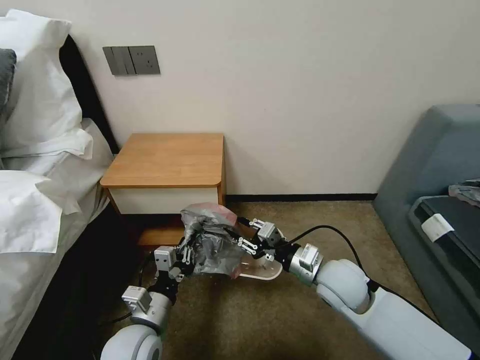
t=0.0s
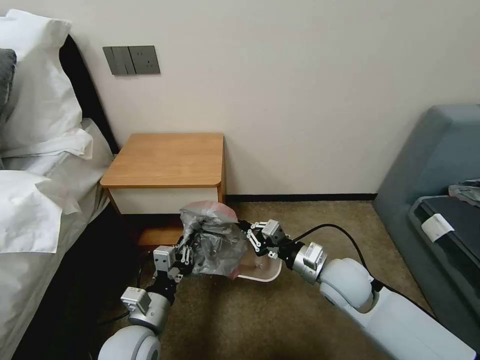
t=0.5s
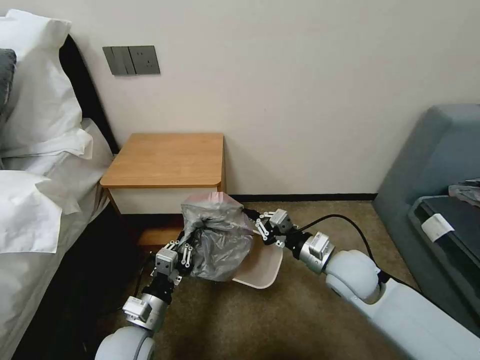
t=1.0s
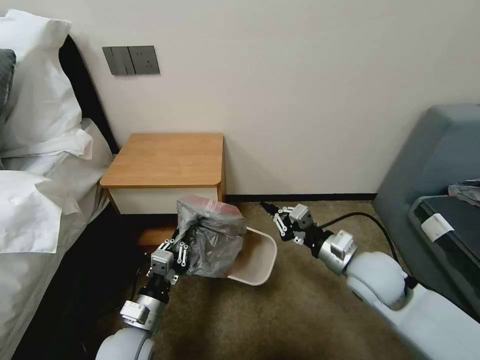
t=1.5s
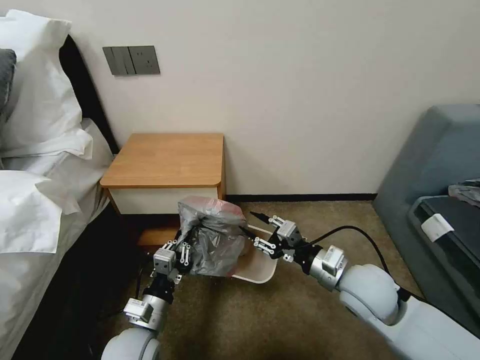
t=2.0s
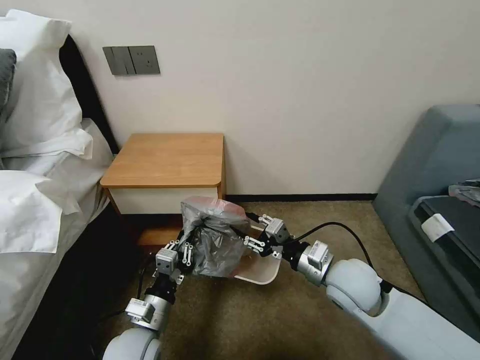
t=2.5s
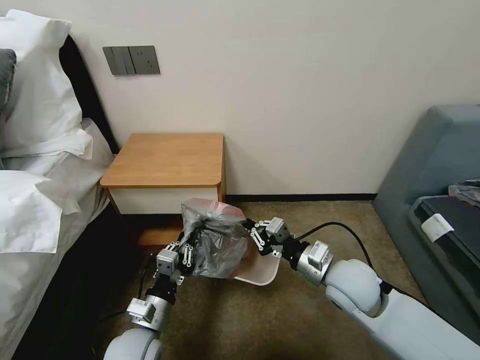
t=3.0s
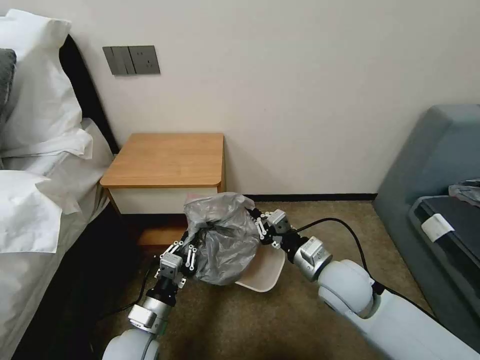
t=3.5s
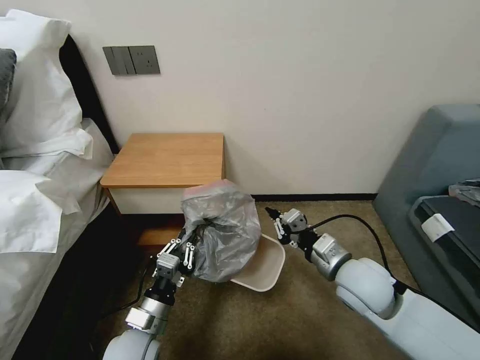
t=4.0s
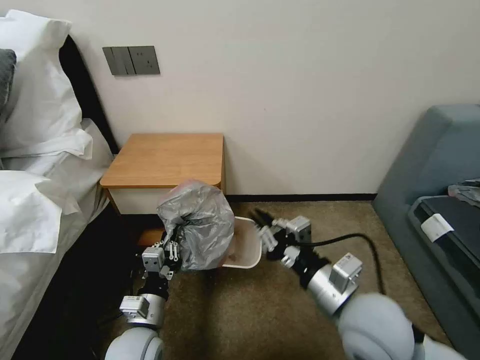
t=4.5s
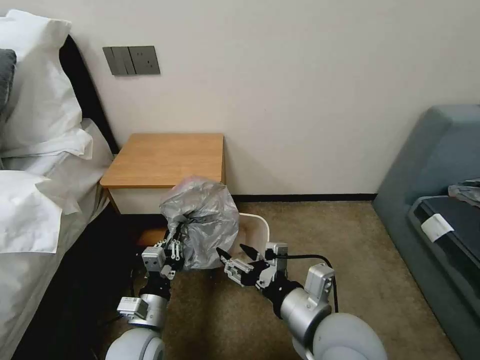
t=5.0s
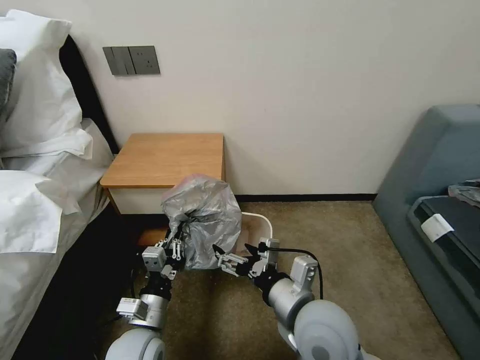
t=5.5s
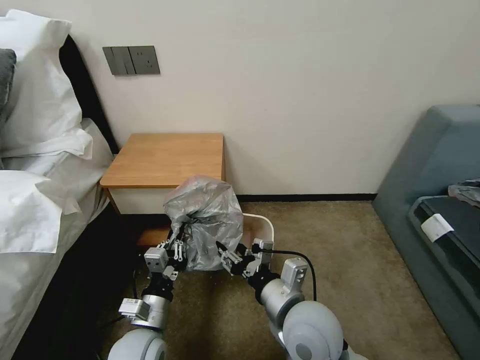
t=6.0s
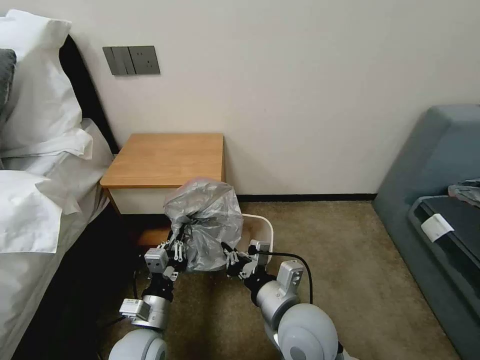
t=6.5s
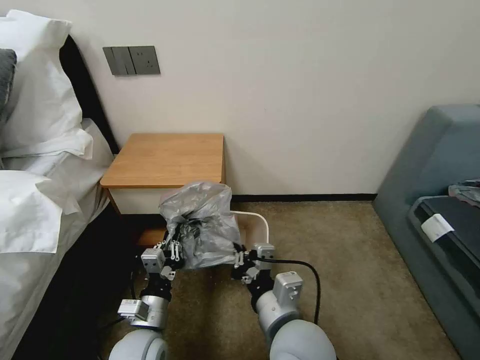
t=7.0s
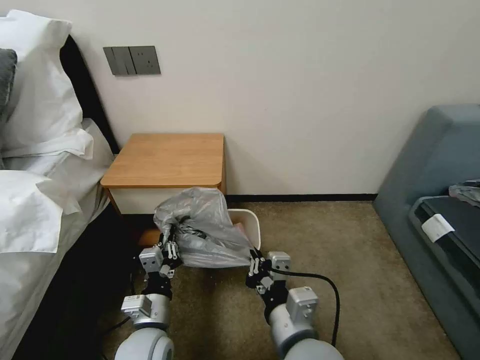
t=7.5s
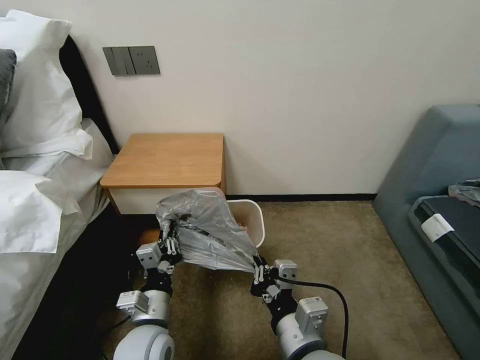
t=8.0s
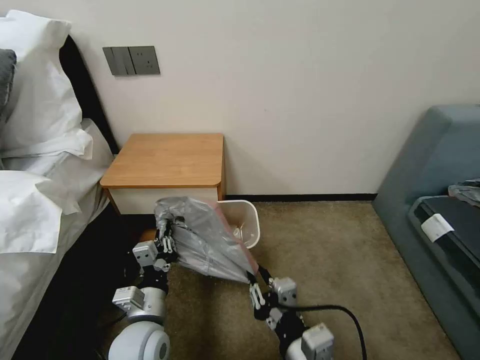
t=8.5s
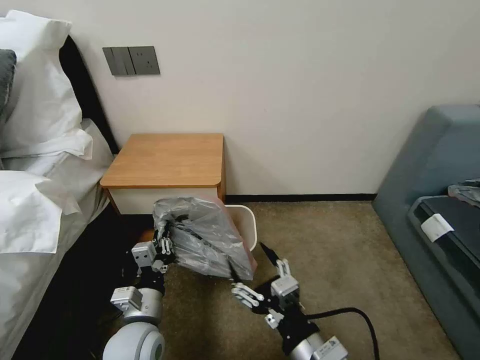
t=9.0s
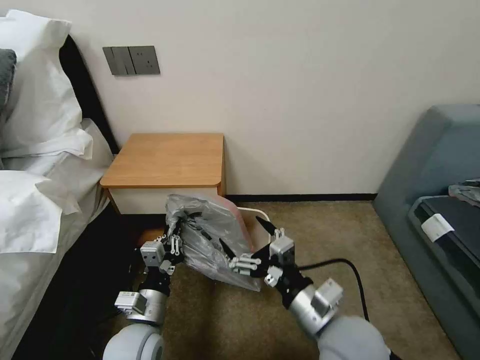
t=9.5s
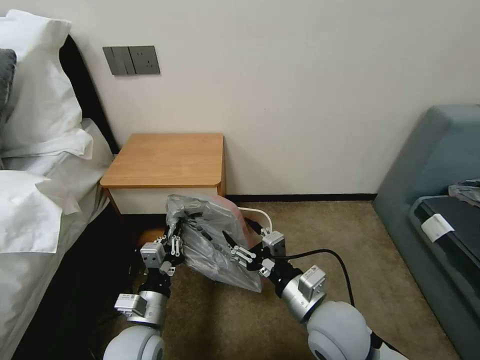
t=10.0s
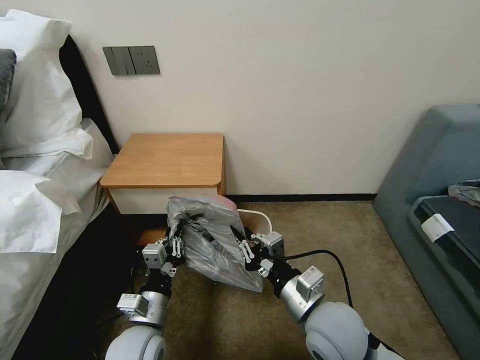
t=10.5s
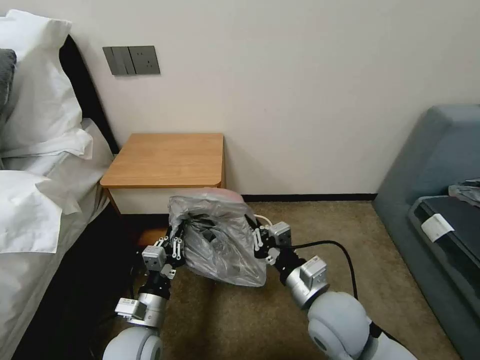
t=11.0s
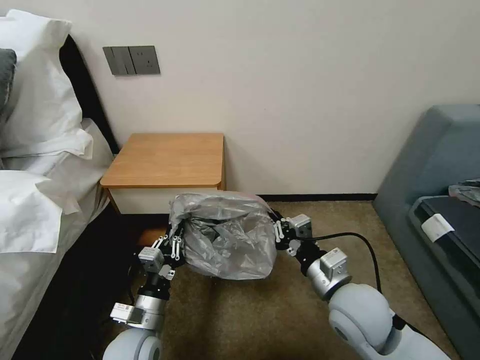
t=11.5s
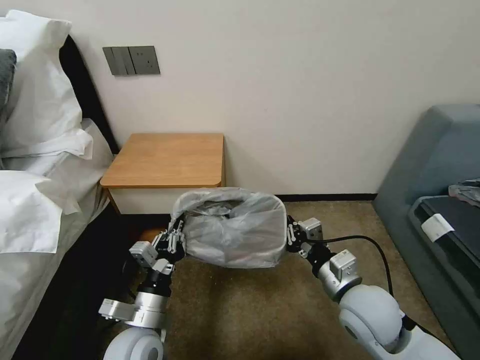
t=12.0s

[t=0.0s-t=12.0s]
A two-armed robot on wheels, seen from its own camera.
Task of the whole recording: Pick up the garbage bag from the table and place it over the trash can.
t=2.0s to t=4.0s: The right gripper closes its fingers.
t=4.0s to t=6.0s: The right gripper heads to the left and backward, covering approximately 15 cm, and opens its fingers.
t=6.0s to t=8.0s: The right gripper moves backward, roughly 10 cm, and closes.
t=8.0s to t=10.0s: The right gripper heads forward and to the right, covering about 10 cm, and opens up.
t=10.0s to t=12.0s: The right gripper shifts some 5 cm to the right, and closes its fingers.

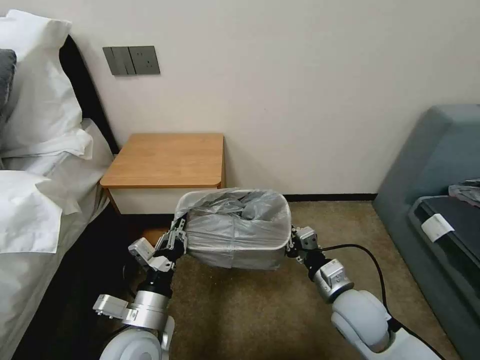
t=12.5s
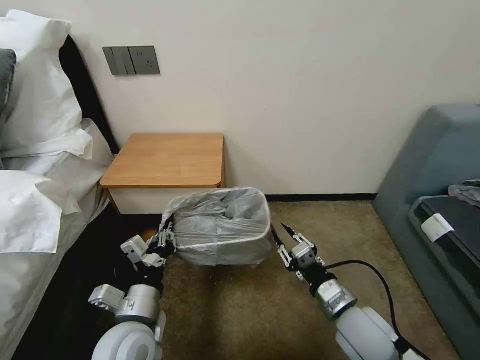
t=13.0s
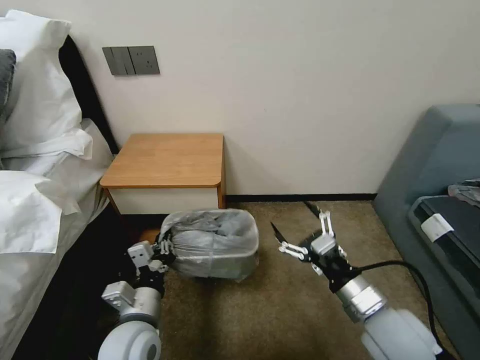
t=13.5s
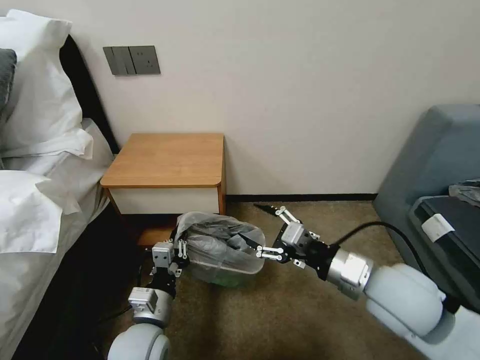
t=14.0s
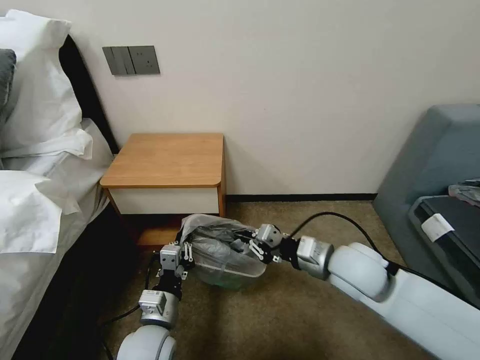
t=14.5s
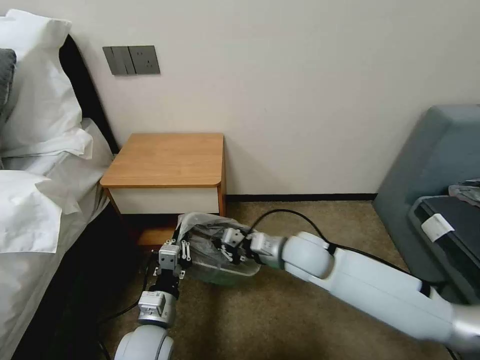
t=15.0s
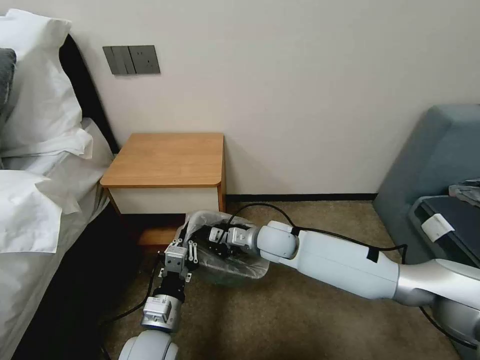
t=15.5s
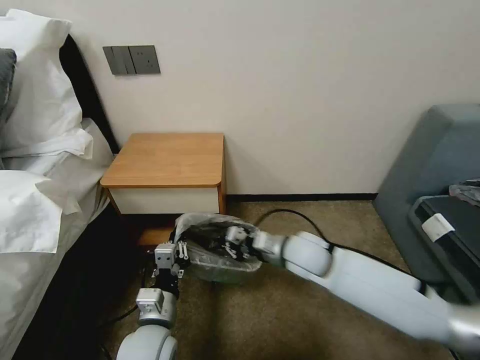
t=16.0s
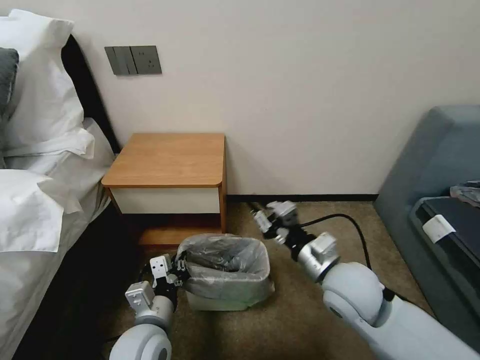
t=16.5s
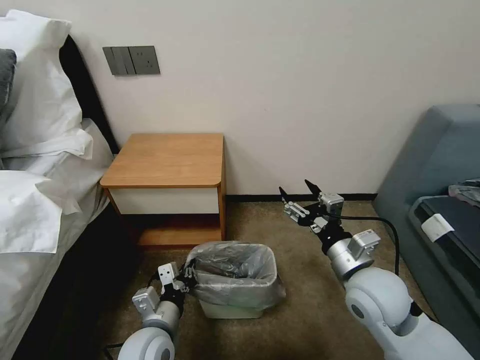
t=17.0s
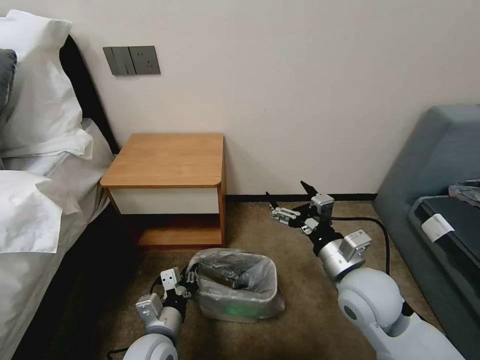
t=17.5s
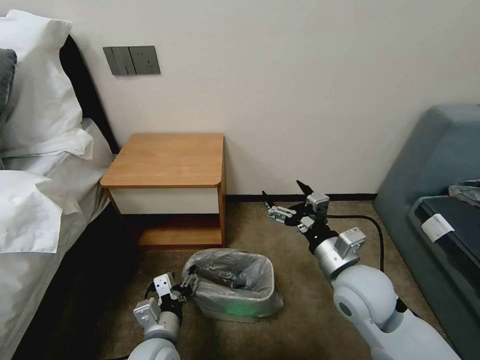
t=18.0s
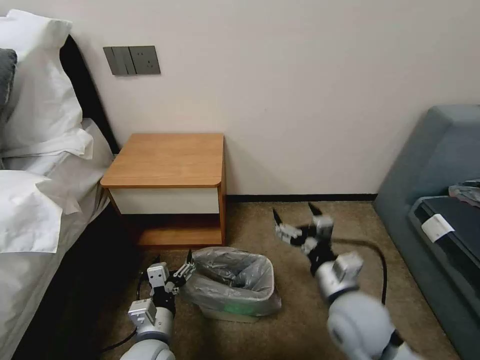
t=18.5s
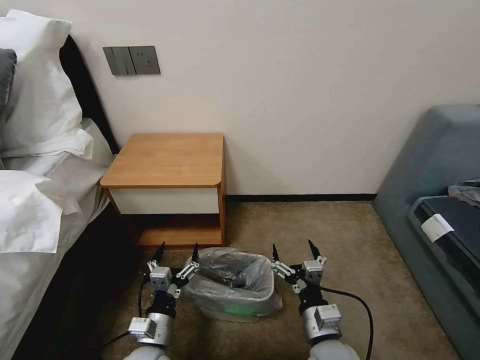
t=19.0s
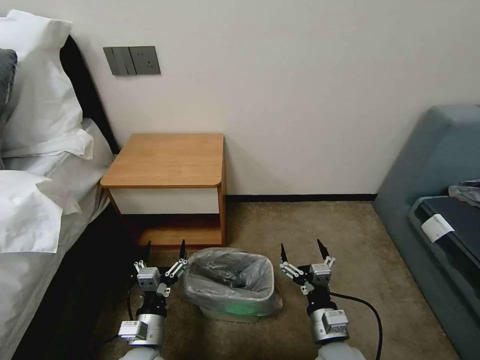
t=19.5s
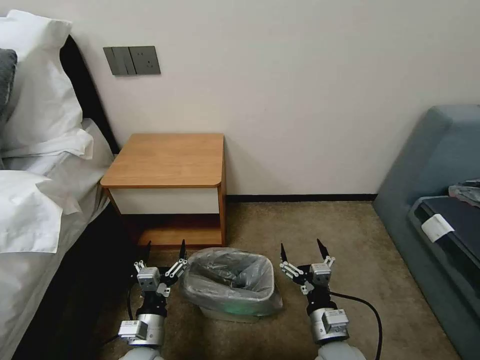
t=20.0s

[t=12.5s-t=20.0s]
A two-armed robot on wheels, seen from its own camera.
Task of the whole recording: Pick up the garbage bag from the table and place it over the trash can.
t=12.5s to t=14.5s: The left gripper changes place by roughly 5 cm. The right gripper is displaced upward by about 10 cm, and opens and closes again.
t=14.5s to t=16.5s: The right gripper travels forward and back again, about 10 cm each way.
t=16.5s to t=18.0s: The left gripper shifts by roughly 5 cm, and opens. The right gripper opens its fingers.
t=18.0s to t=20.0s: The left gripper shifts by roughly 5 cm, while the right gripper is displaced downward and backward by approximately 15 cm.

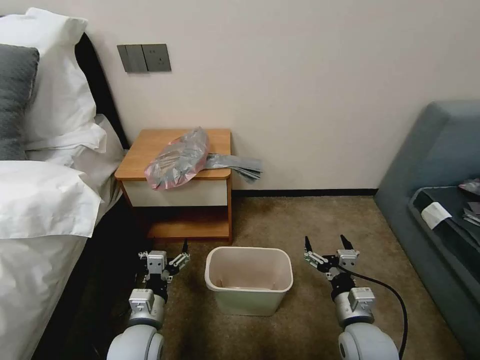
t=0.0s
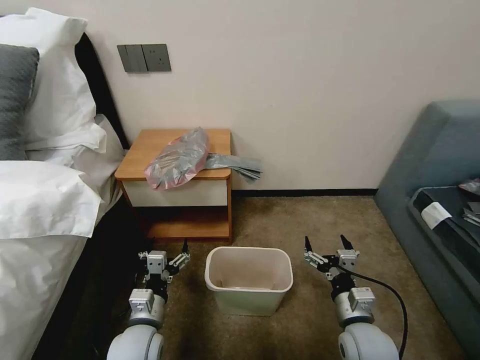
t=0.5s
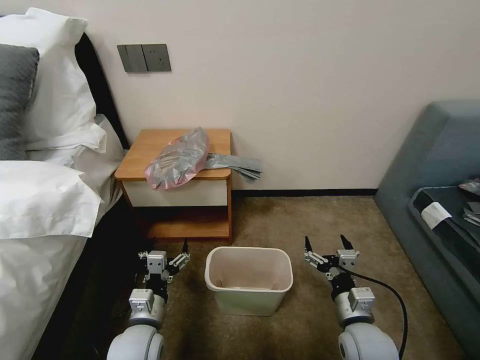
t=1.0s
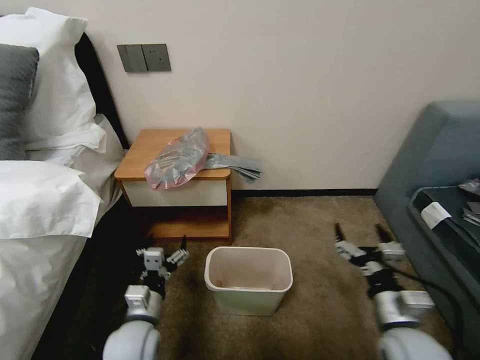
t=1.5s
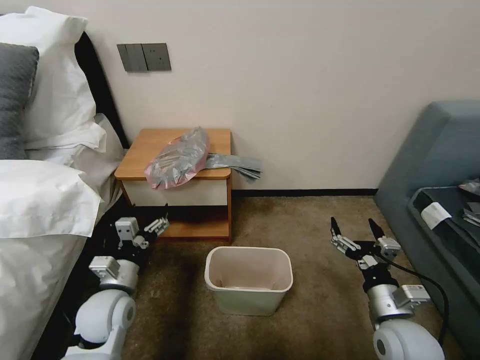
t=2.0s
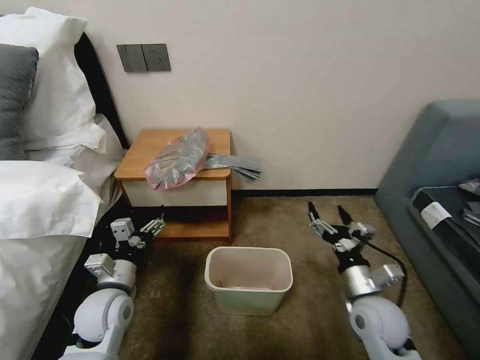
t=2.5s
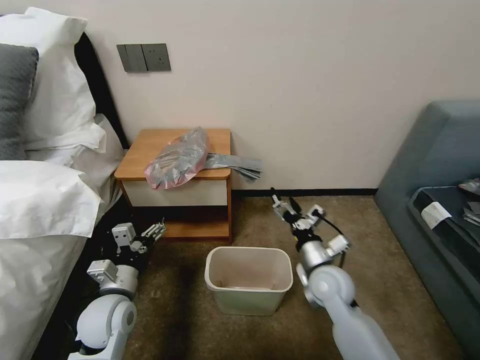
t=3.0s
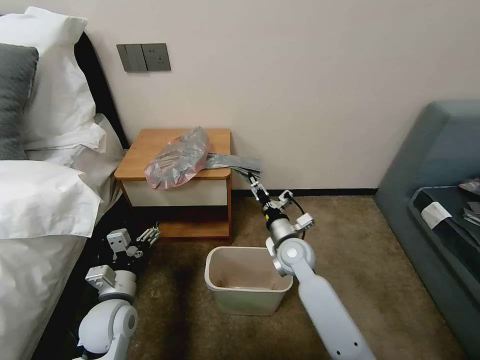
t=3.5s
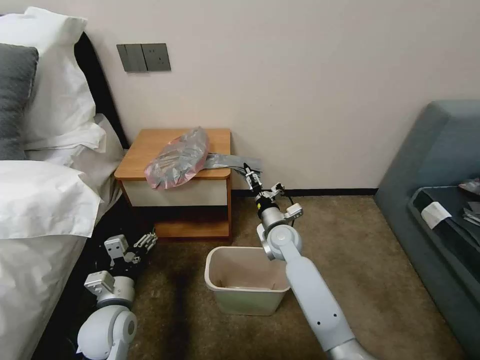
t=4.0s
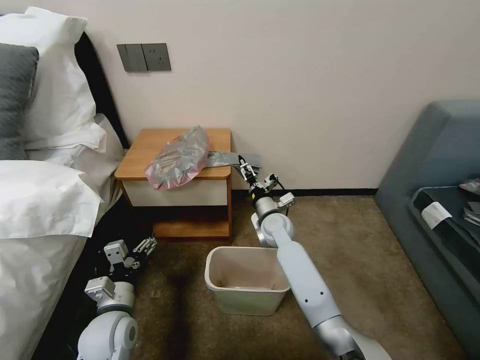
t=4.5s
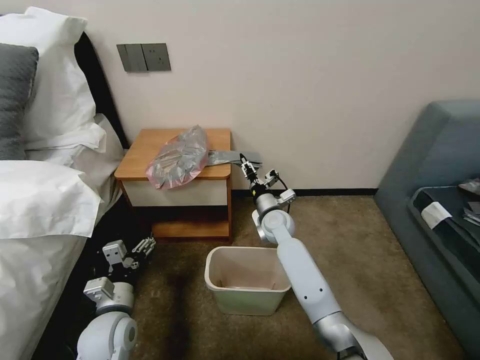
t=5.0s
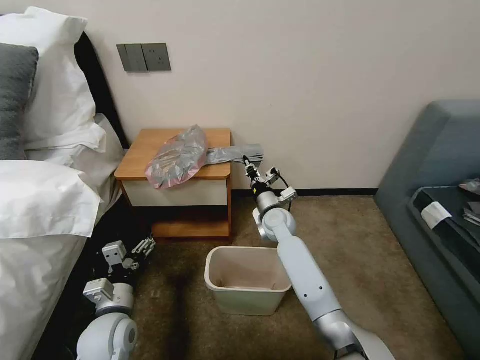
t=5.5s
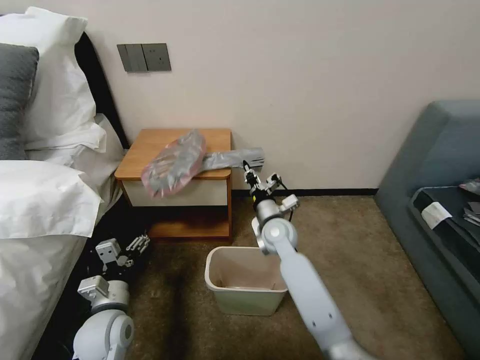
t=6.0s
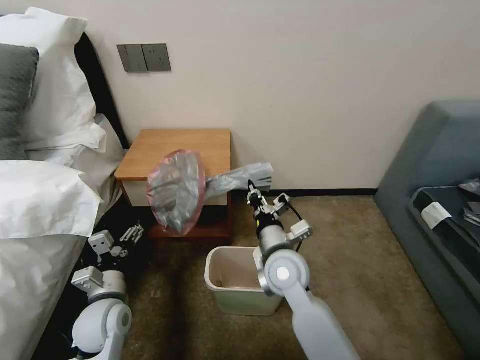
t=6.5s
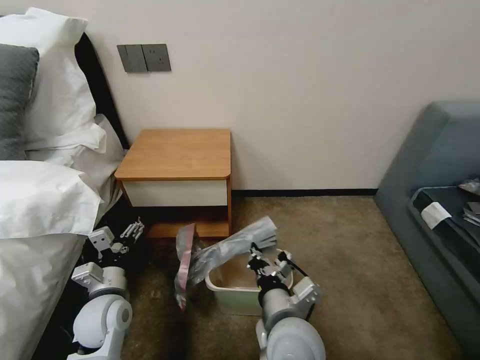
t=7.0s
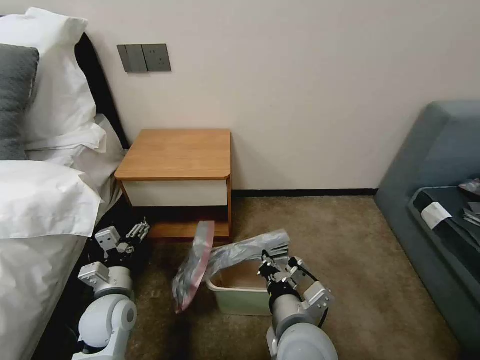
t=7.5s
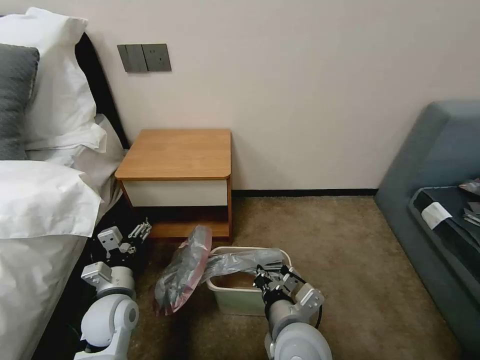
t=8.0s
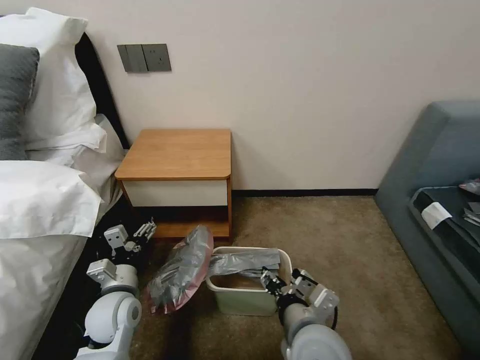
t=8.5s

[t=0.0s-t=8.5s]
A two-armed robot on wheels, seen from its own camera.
Task of the whole recording: Pick up the garbage bag from the table and place it over the trash can.
t=2.0s to t=4.0s: The right gripper goes some 30 cm forward and to the left.
t=4.0s to t=6.5s: The right gripper travels backward and upward by some 15 cm, and closes its fingers.
t=6.5s to t=8.5s: The right gripper travels backward by some 15 cm, and opens.
